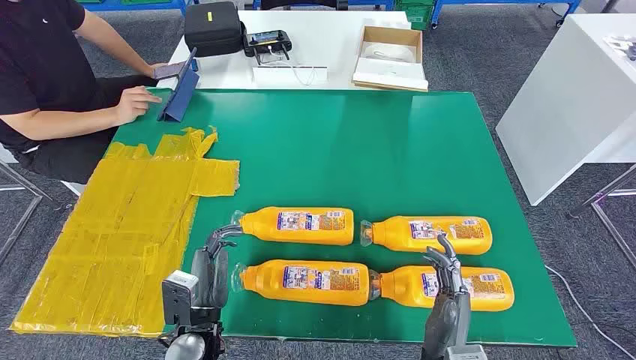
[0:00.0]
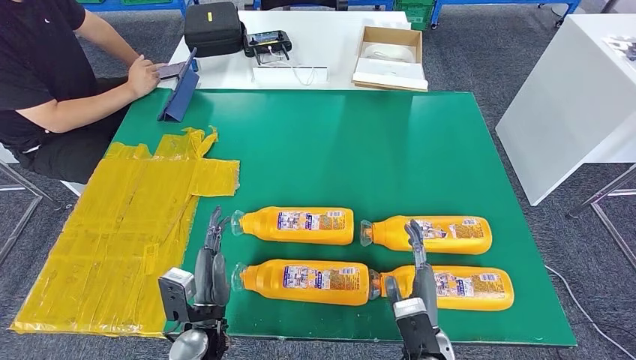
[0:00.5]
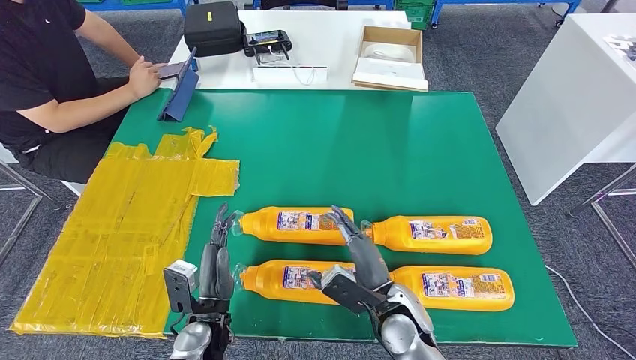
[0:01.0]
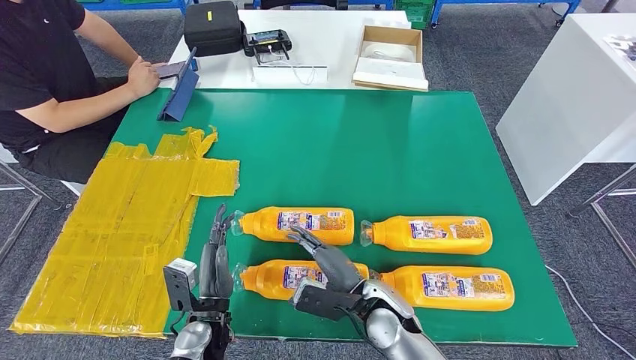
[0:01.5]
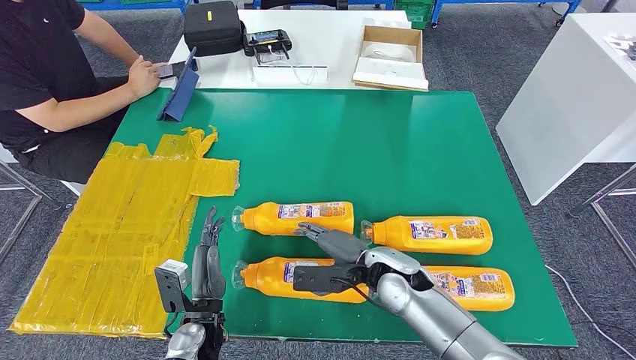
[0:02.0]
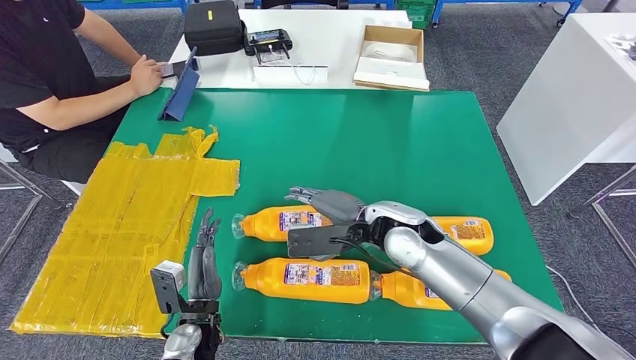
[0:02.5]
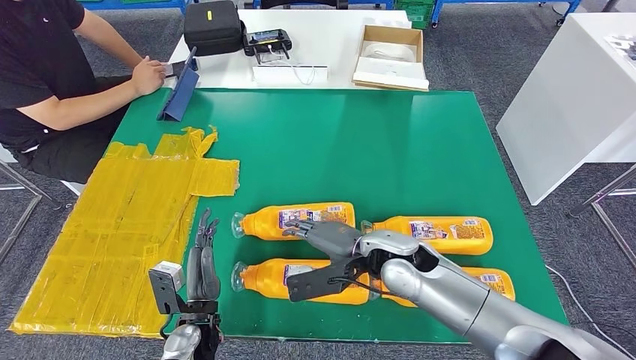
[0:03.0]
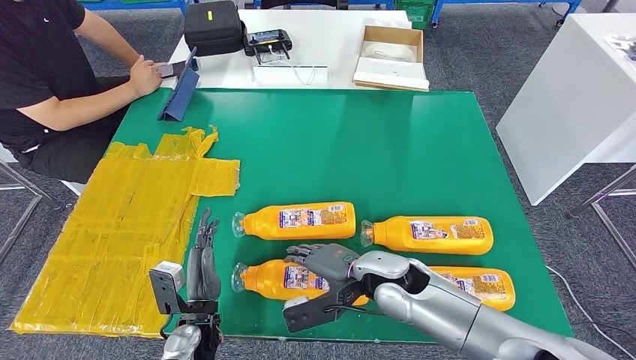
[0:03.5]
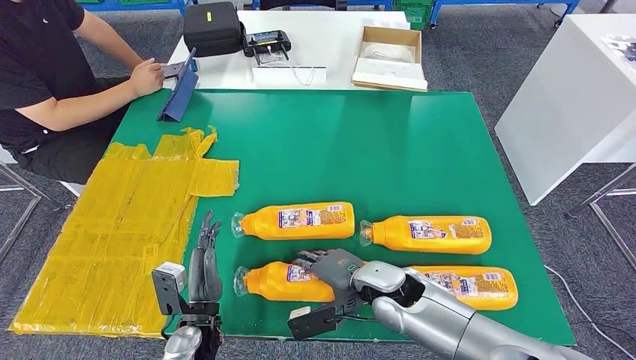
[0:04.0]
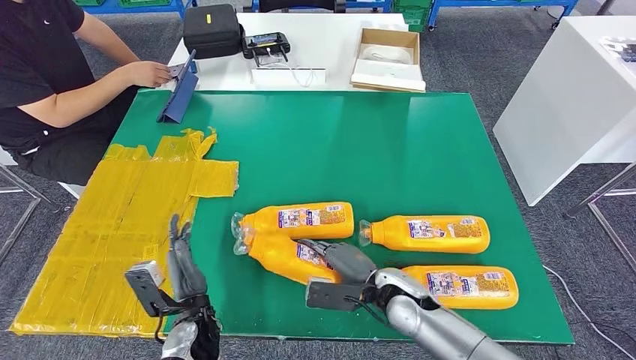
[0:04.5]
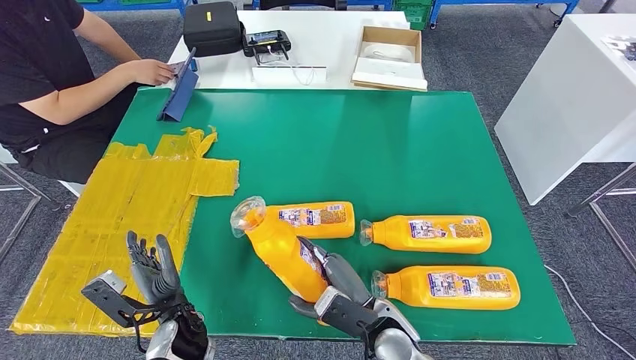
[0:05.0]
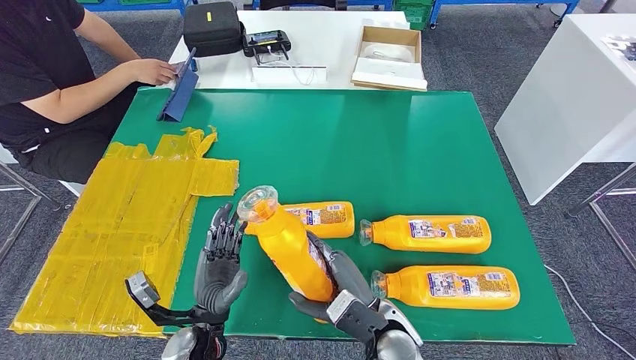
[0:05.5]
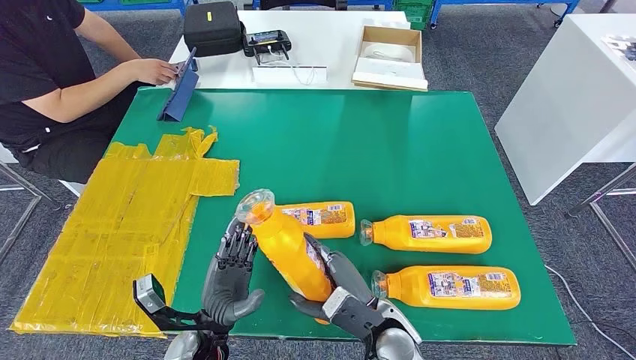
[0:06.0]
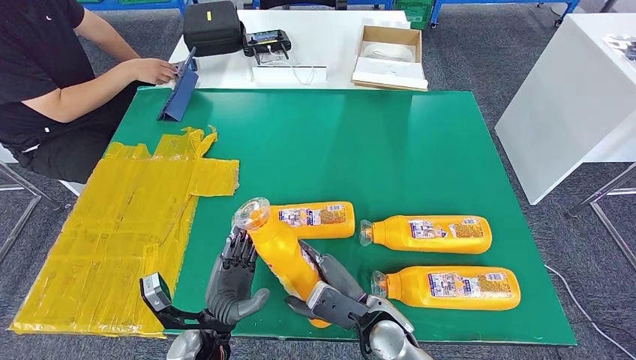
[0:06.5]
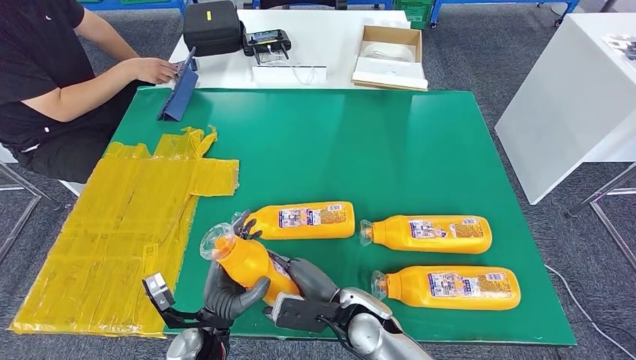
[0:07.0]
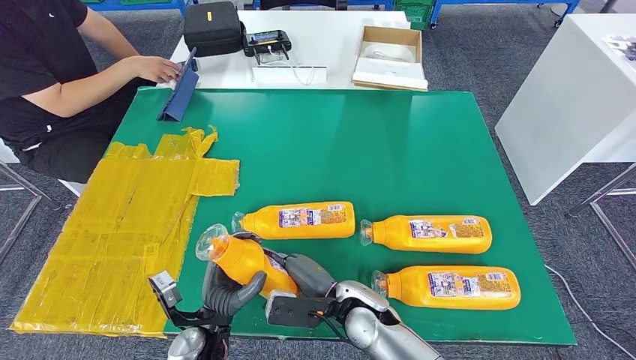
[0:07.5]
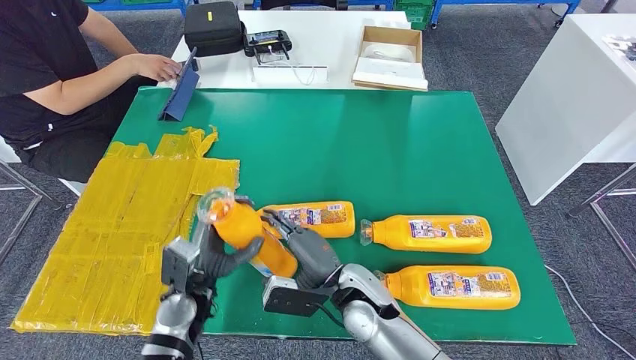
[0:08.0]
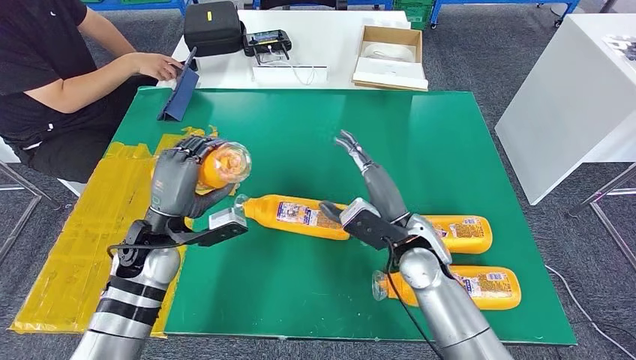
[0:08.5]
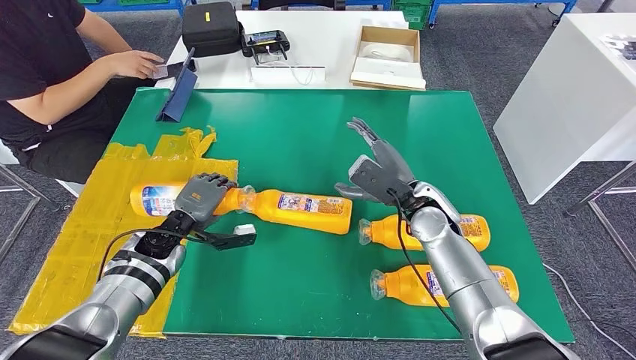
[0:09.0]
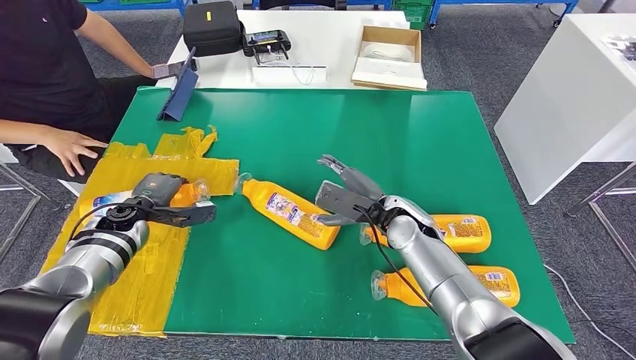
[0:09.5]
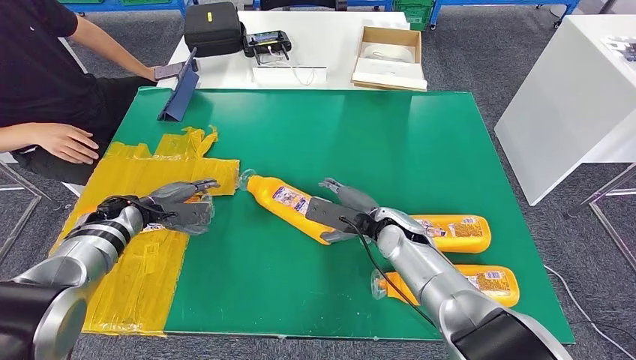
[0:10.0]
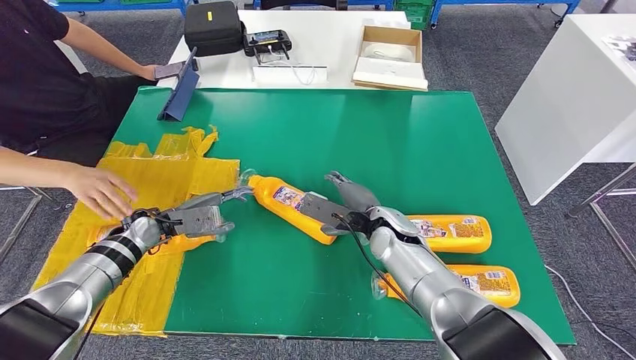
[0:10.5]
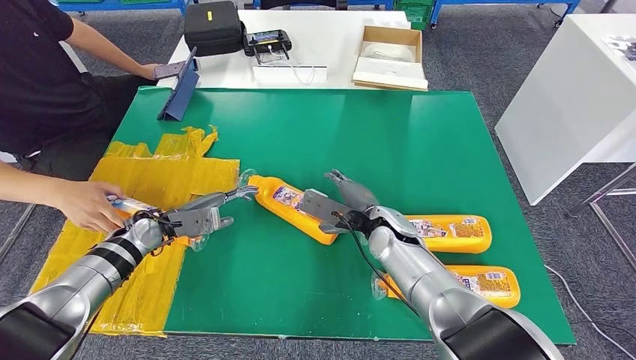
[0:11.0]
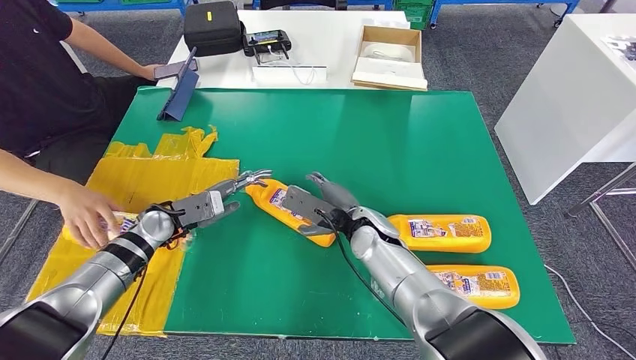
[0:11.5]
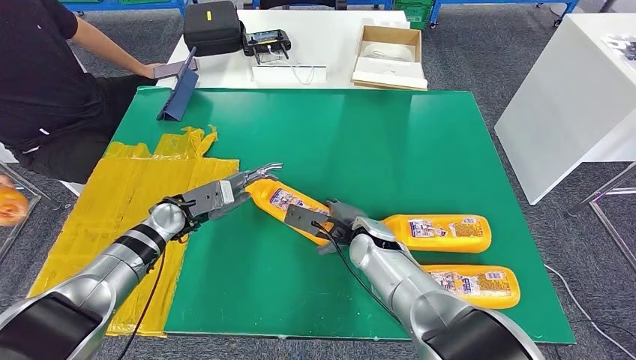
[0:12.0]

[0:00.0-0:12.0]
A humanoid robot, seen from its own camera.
Step, 0:00.0 to 0:04.5: Take the bottle from the table.
Step, 0:05.5 to 0:11.0: Flip the bottle to face forward.
0:02.0 to 0:04.0: The right hand reaches some 10 cm upward, then returns.
0:04.0 to 0:06.0: The right hand is displaced backward by about 5 cm.
0:06.0 to 0:08.0: The right hand moves to the left, roughly 5 cm; the left hand is displaced forward by about 5 cm.
0:10.0 to 0:12.0: The left hand moves to the right, roughly 10 cm; the right hand shifts by roughly 5 cm.

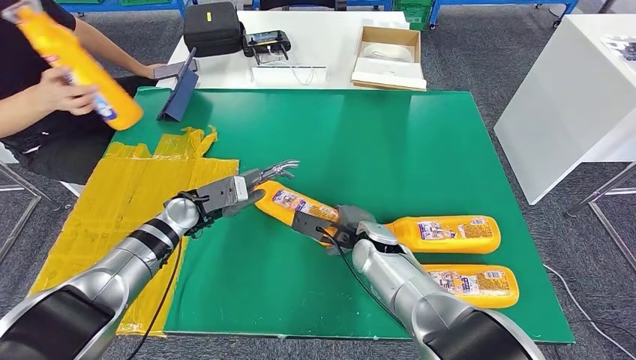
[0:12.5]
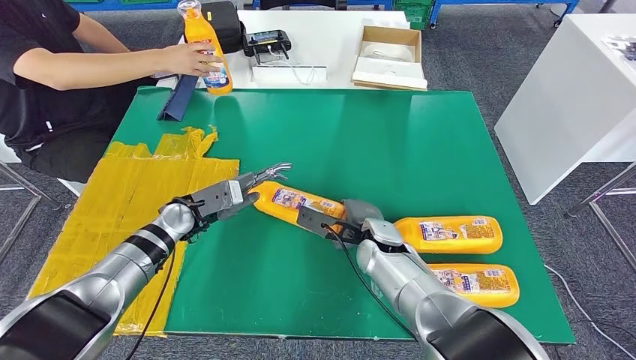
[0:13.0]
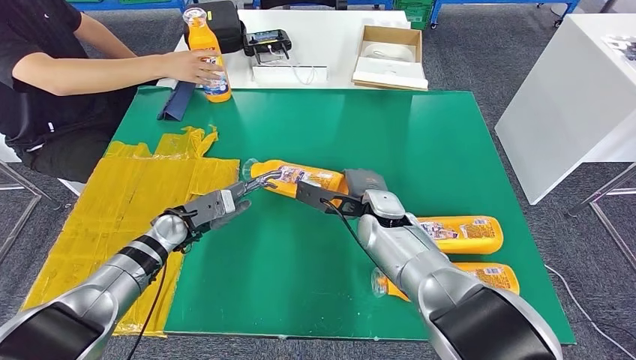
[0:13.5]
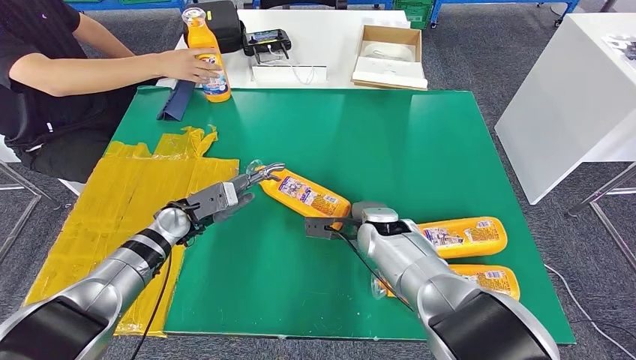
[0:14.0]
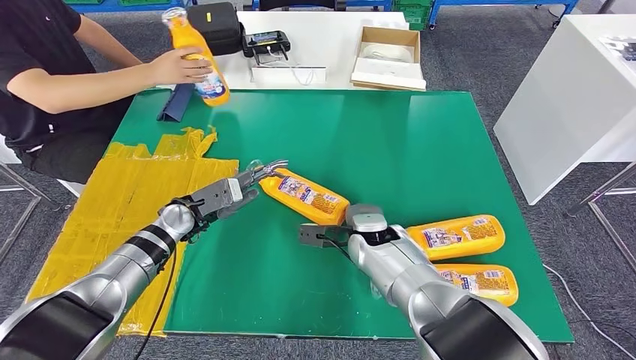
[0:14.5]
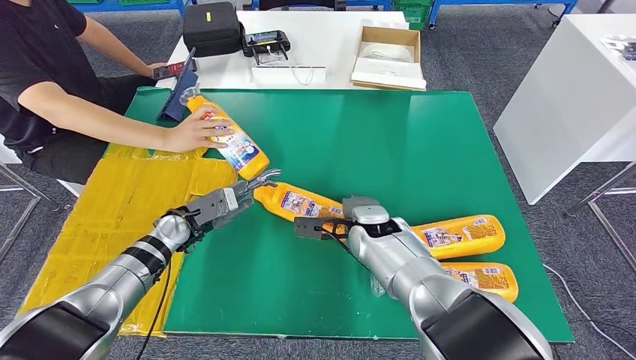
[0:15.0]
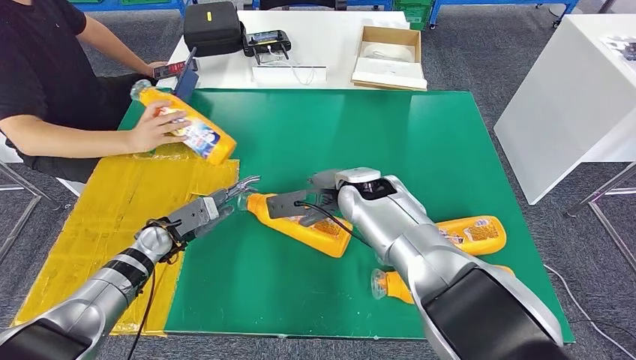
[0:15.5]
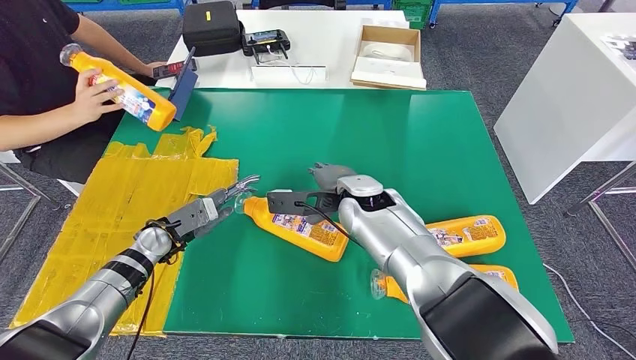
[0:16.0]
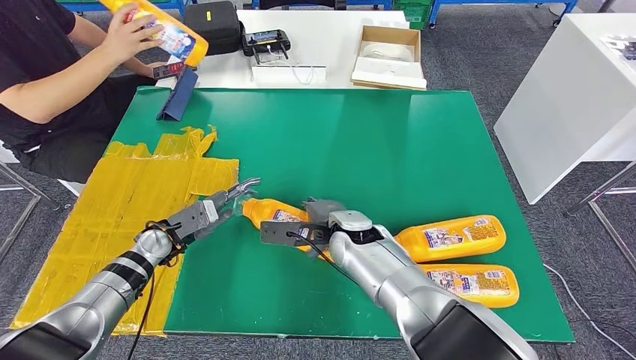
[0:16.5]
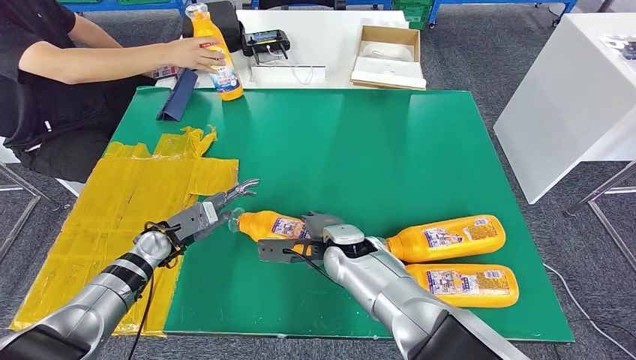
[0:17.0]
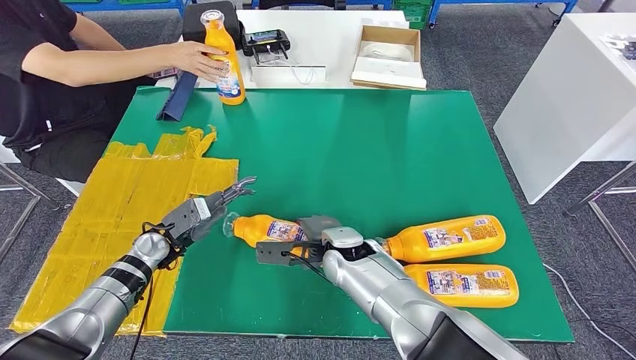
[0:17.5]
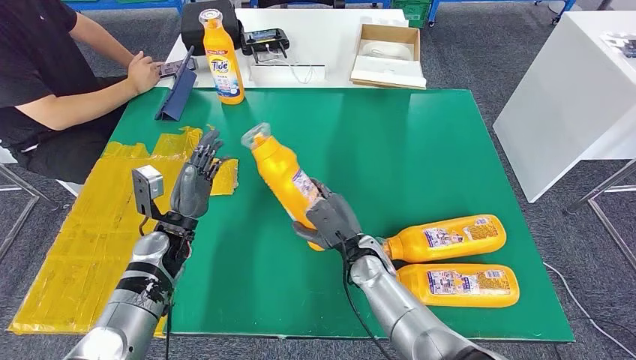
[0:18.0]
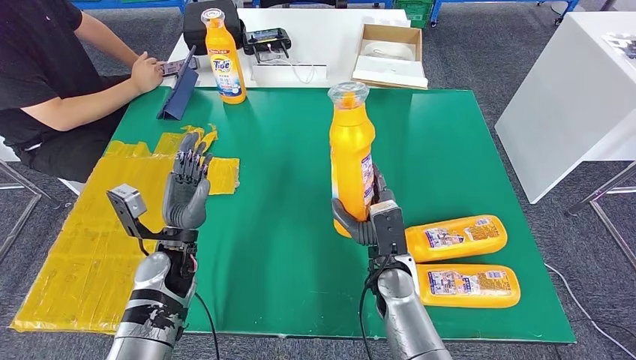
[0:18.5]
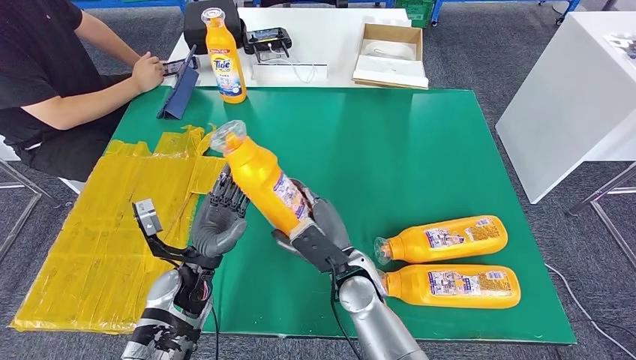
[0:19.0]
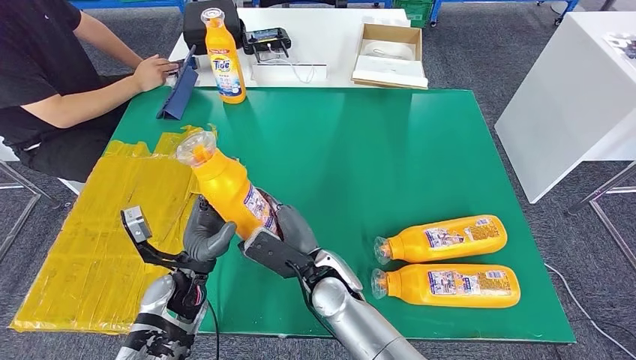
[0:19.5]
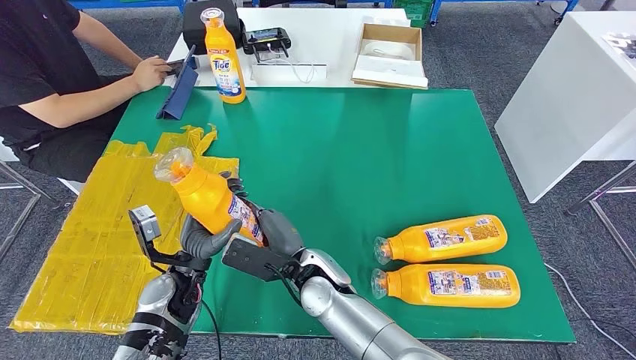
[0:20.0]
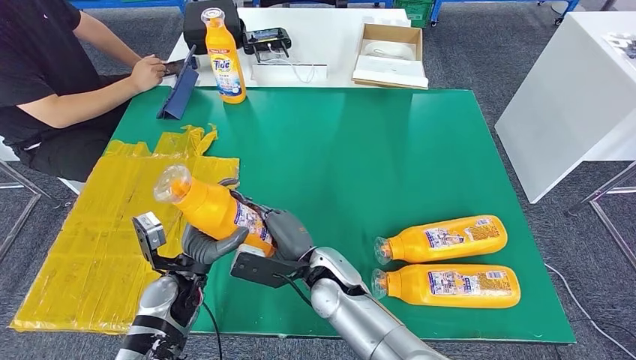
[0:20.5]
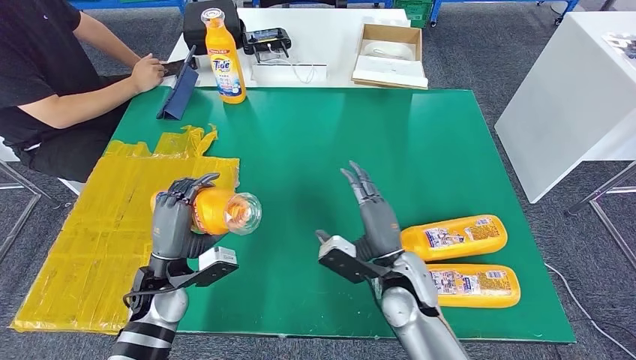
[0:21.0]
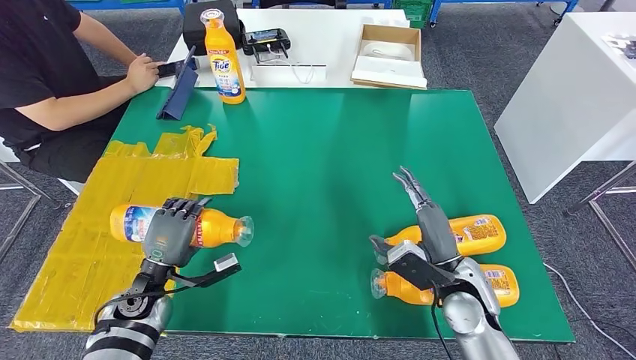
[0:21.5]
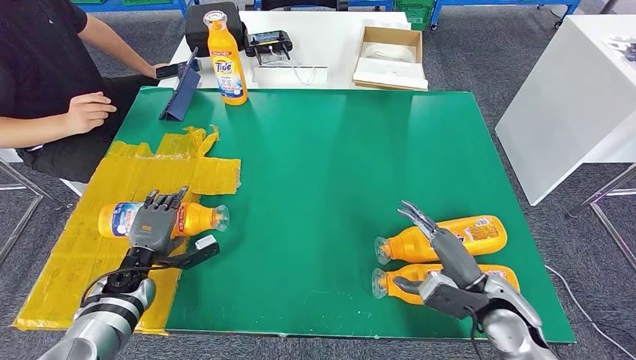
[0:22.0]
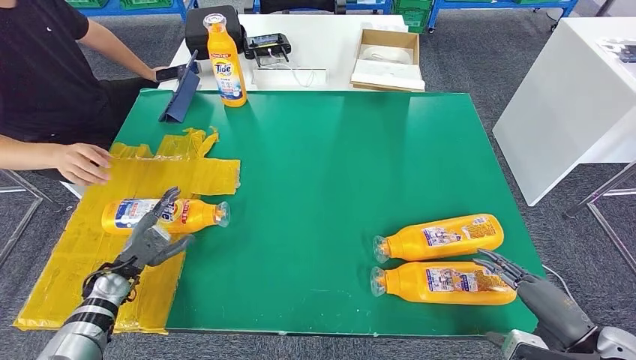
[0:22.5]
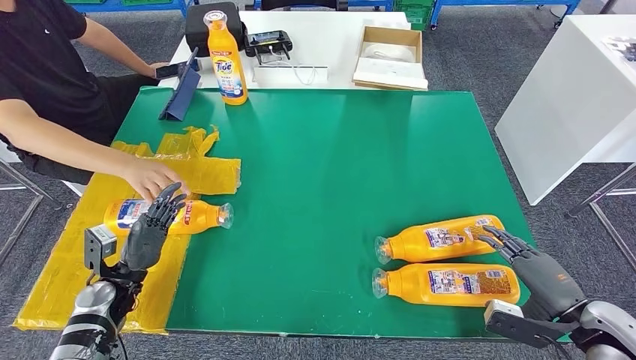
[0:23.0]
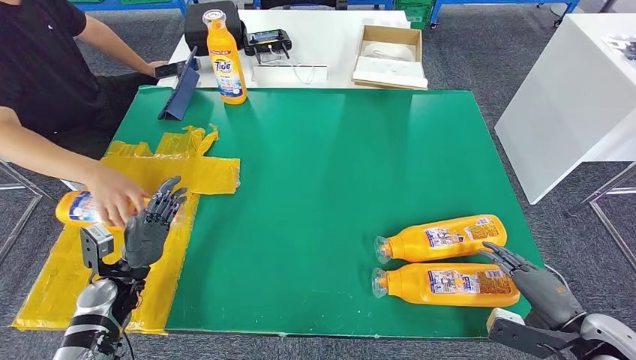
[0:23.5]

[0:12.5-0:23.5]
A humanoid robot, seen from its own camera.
Step, 0:12.5 to 0:18.0: Pick up the bottle from the table.
Step, 0:19.0 to 0:22.5: Flip the bottle to face forward.
0:20.0 to 0:21.5: The right hand is displaced to the right by roughly 25 cm; the left hand is displaced to the left by approximately 10 cm.
